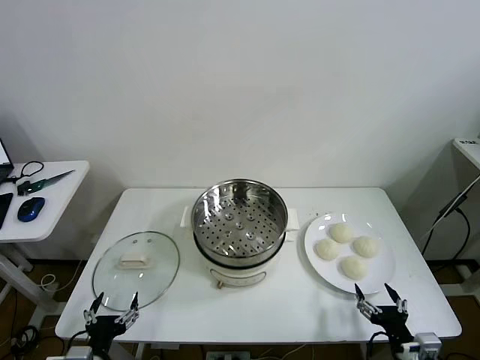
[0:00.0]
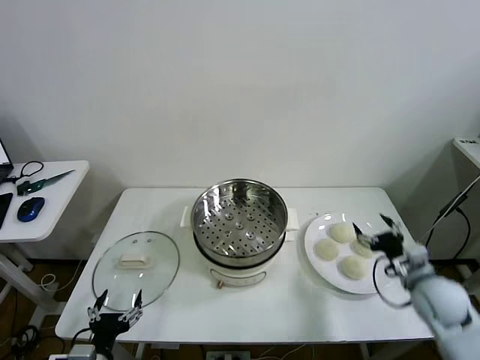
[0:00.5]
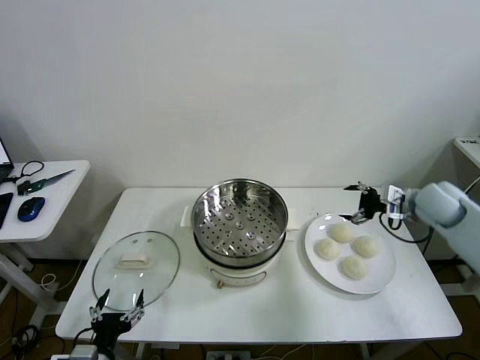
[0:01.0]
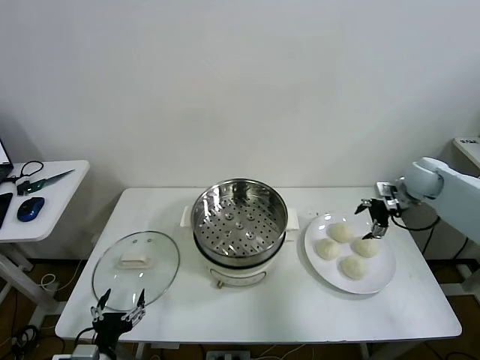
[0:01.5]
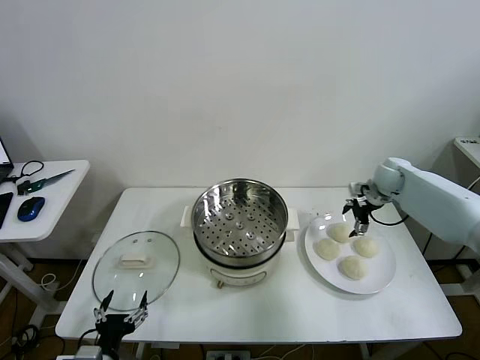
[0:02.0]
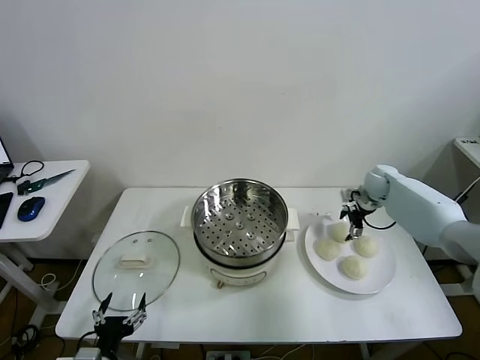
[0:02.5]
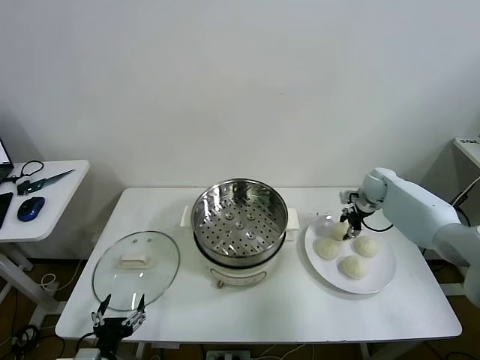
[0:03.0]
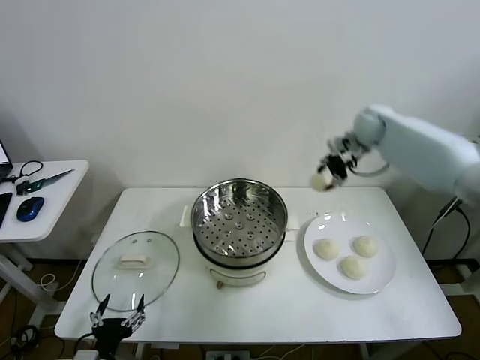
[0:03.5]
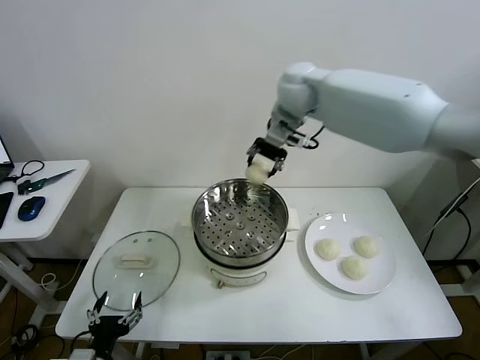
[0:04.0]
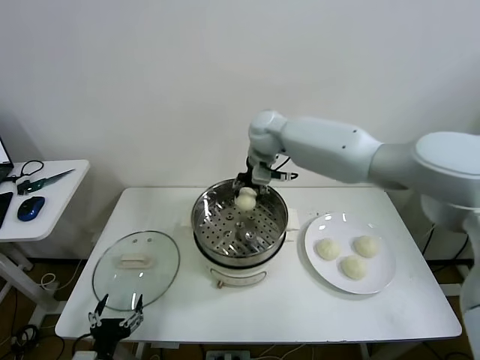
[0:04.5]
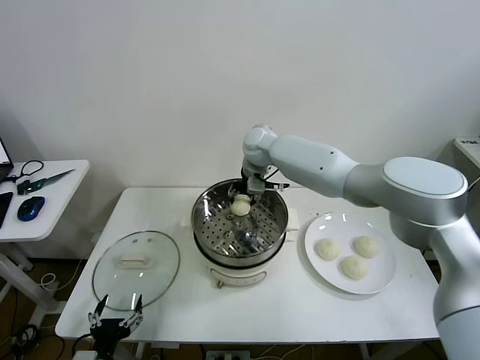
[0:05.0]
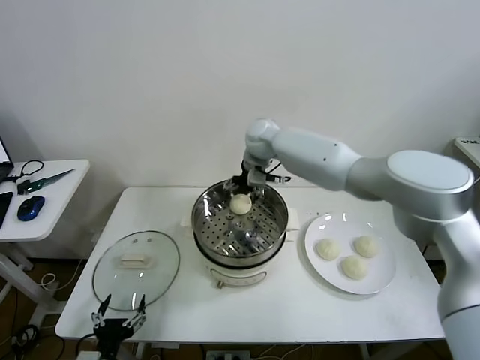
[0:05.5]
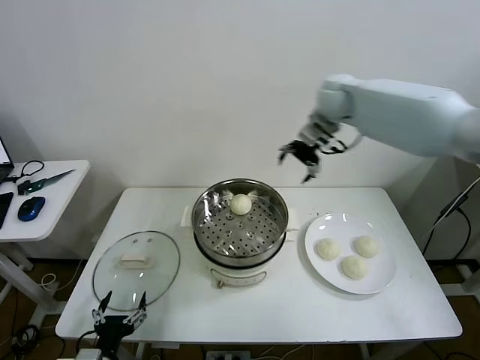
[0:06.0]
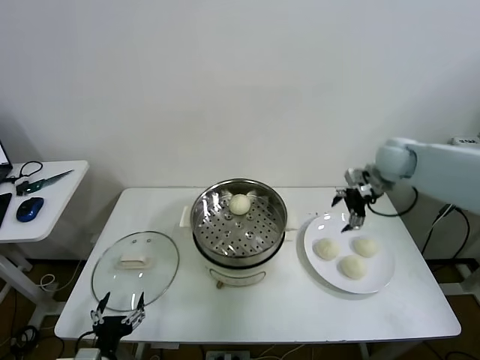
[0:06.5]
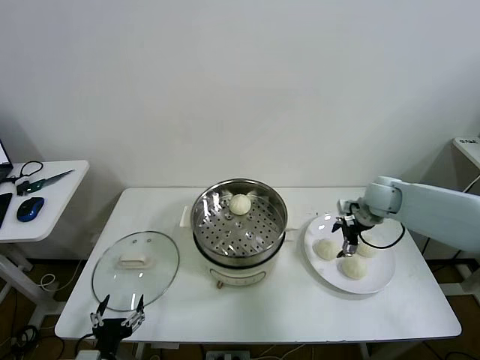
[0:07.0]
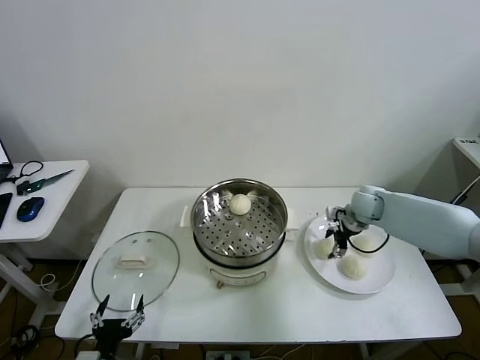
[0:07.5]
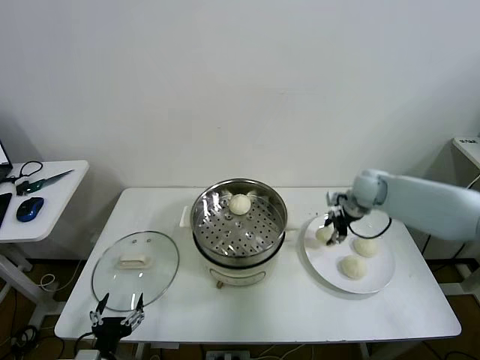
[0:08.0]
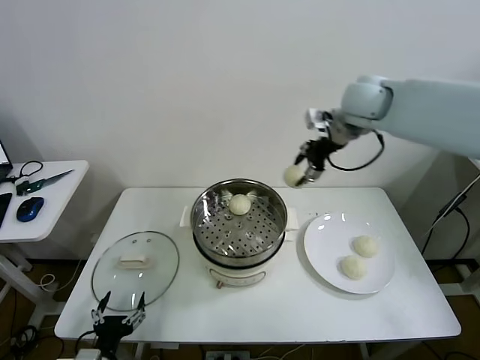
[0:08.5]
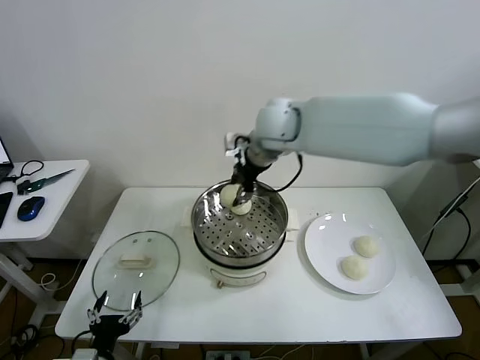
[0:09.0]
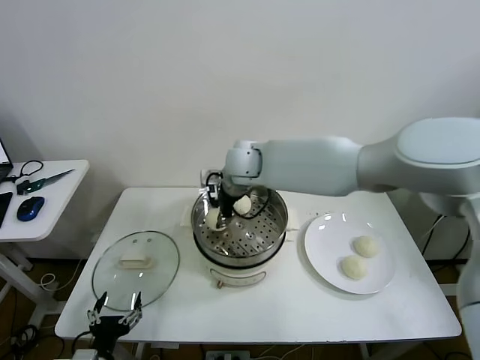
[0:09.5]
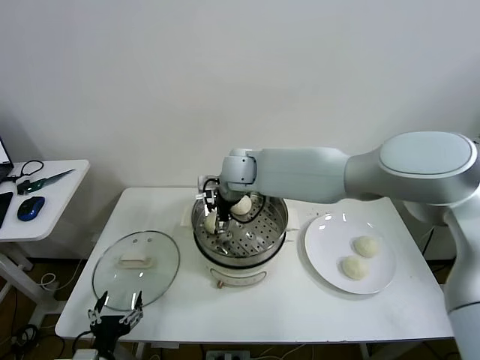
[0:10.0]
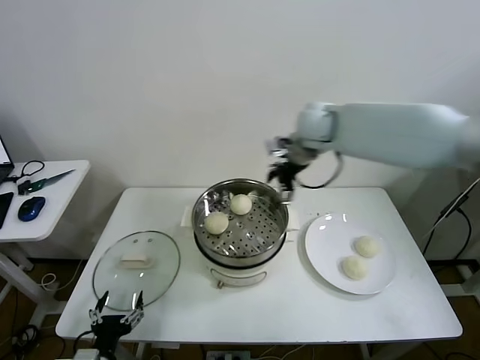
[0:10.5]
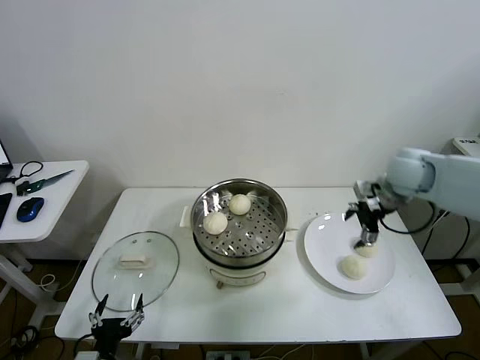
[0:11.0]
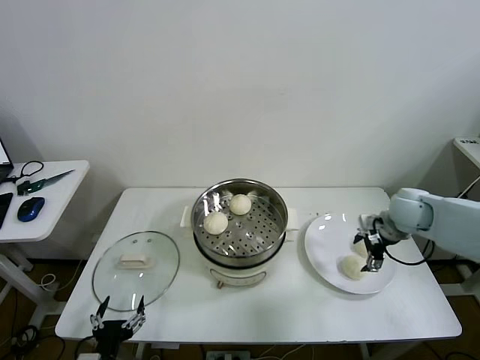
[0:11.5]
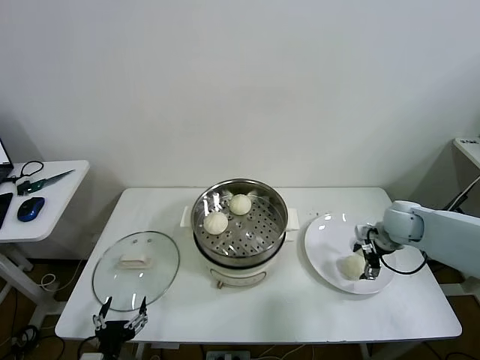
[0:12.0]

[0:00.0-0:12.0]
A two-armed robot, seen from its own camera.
Task of the whole recording: take steamed baozi put them in steamer then cover it.
Step, 0:00.0 to 0:02.5: Grasp the baozi in the plate with right gripper.
Step, 0:03.0 to 0:05.5: Place the baozi on the steamer with right gripper.
Step, 0:06.0 to 0:07.5: Grasp the baozi in the plate with right gripper.
Step, 0:08.0 to 0:09.5: Place the baozi on the steamer with right gripper.
0:02.0 to 0:04.0: The right gripper moves to the left and upward, roughly 40 cm, and closes up.
0:04.0 to 0:06.0: The right gripper goes some 15 cm to the right, and opens.
0:06.0 to 0:08.0: The right gripper heads downward, covering approximately 15 cm, and closes up.
0:08.0 to 0:10.0: The right gripper travels to the left by approximately 30 cm, and opens its fingers.
0:10.0 to 0:12.0: The right gripper shifts approximately 40 cm to the right.

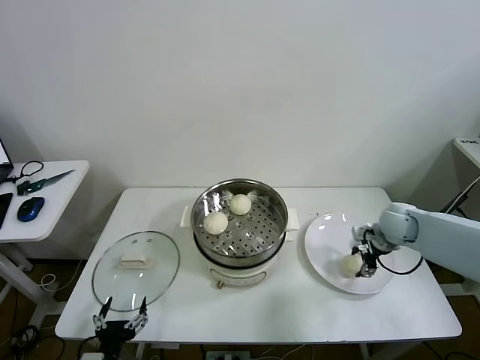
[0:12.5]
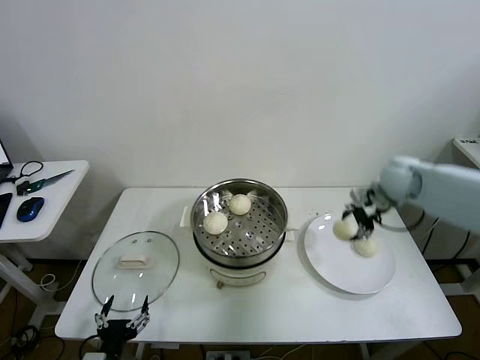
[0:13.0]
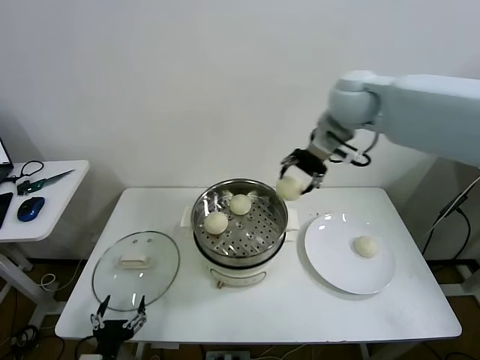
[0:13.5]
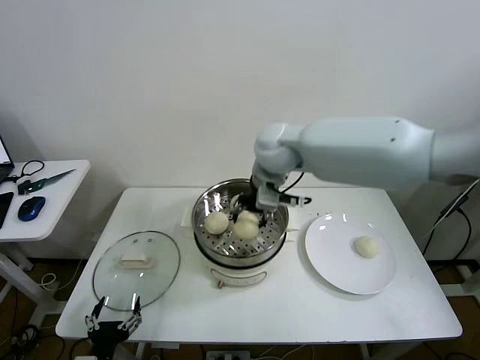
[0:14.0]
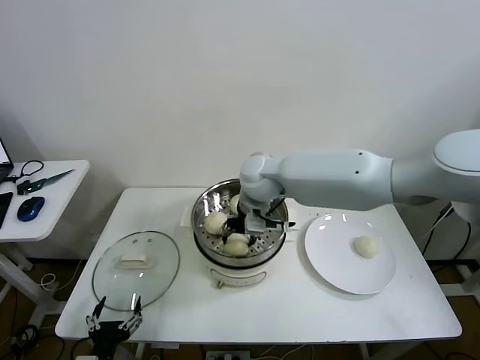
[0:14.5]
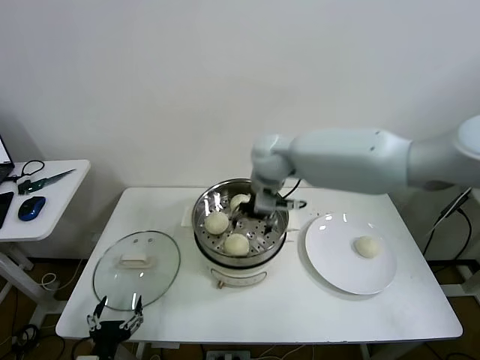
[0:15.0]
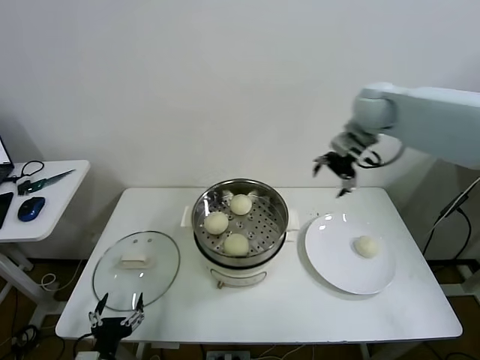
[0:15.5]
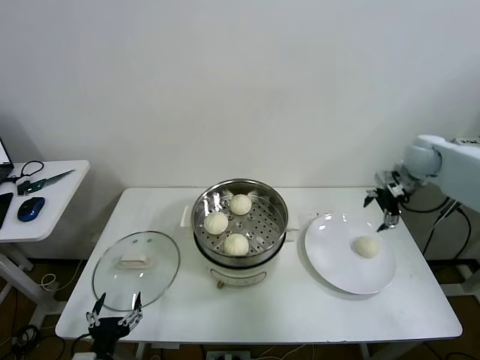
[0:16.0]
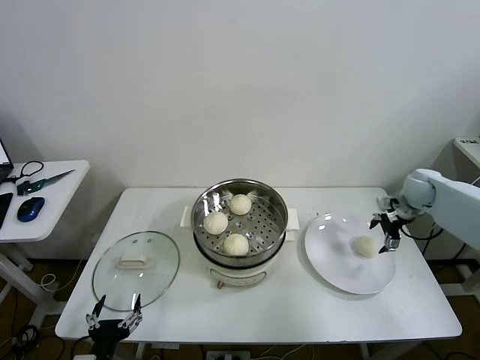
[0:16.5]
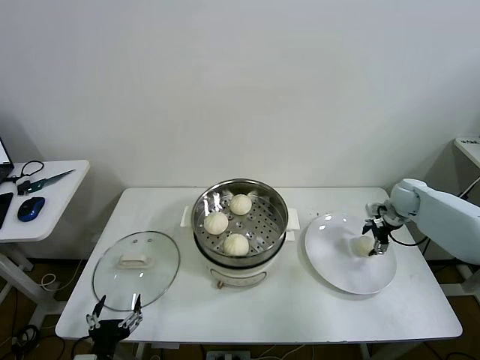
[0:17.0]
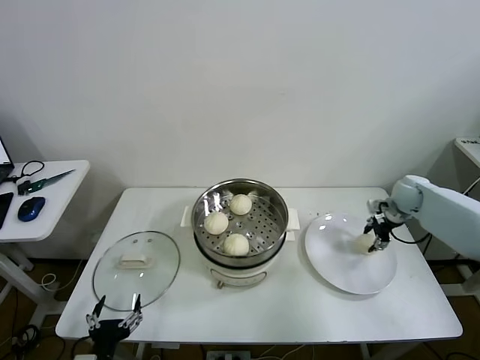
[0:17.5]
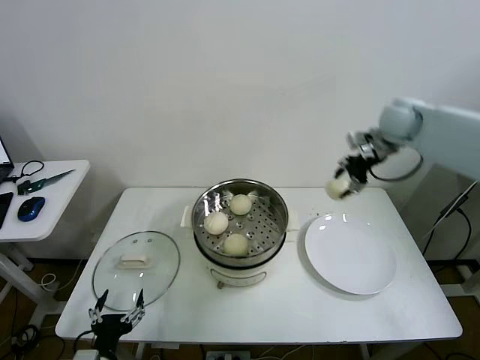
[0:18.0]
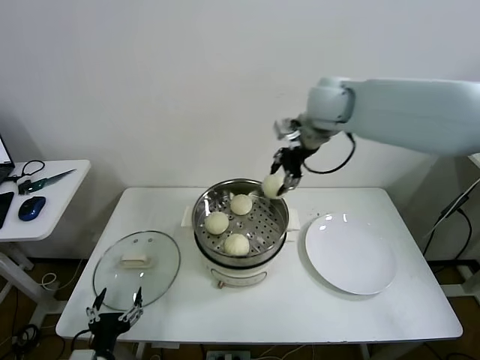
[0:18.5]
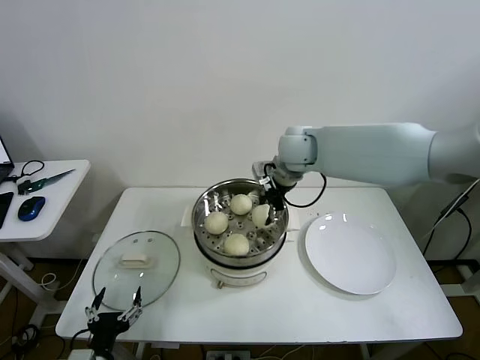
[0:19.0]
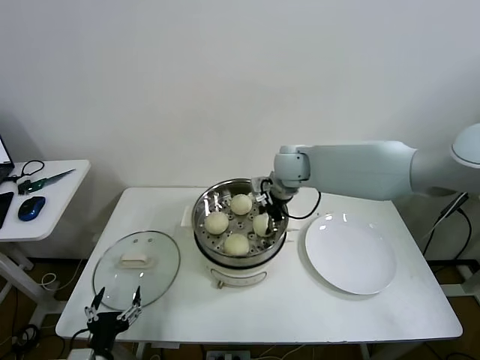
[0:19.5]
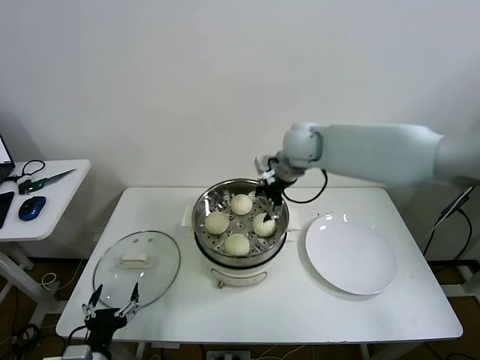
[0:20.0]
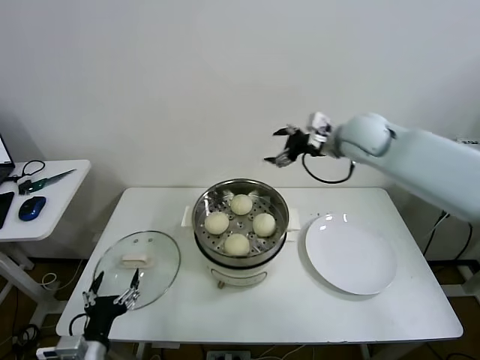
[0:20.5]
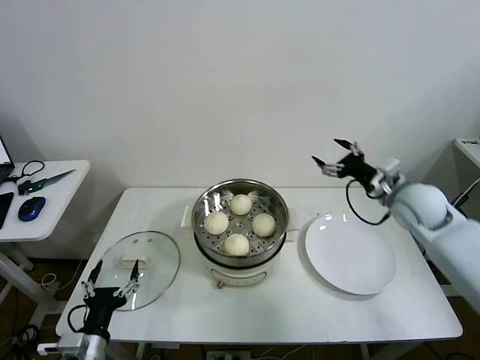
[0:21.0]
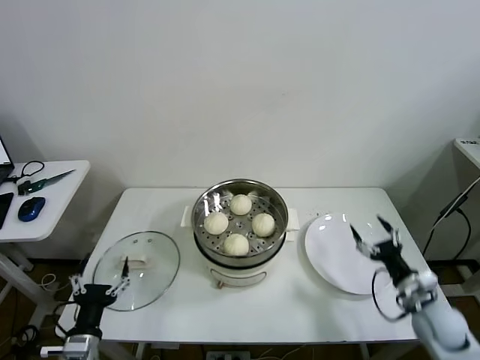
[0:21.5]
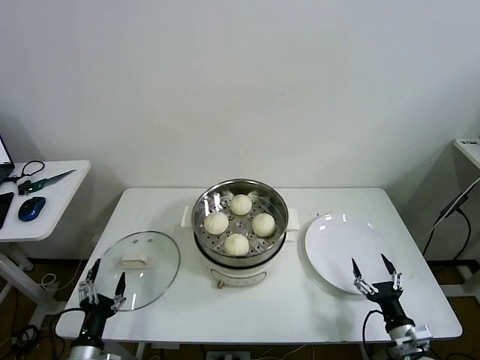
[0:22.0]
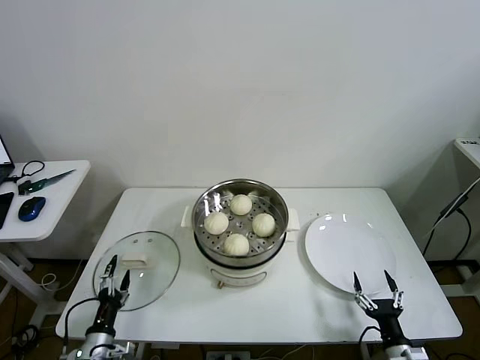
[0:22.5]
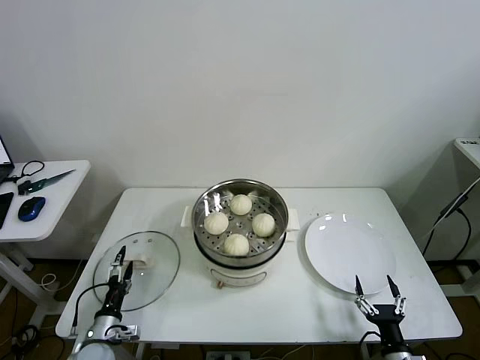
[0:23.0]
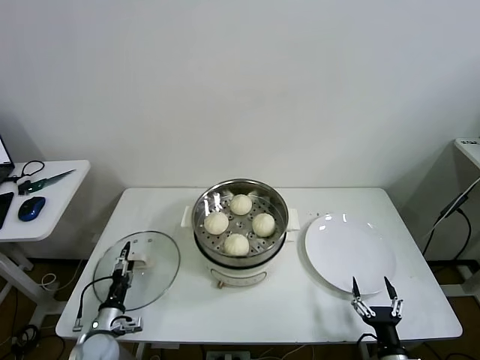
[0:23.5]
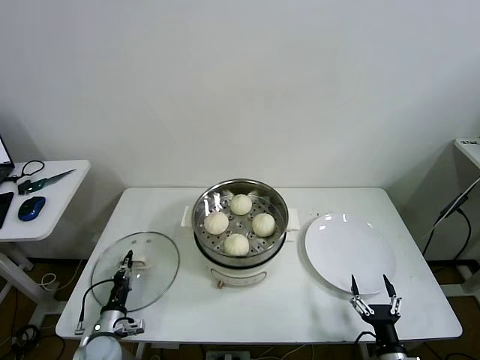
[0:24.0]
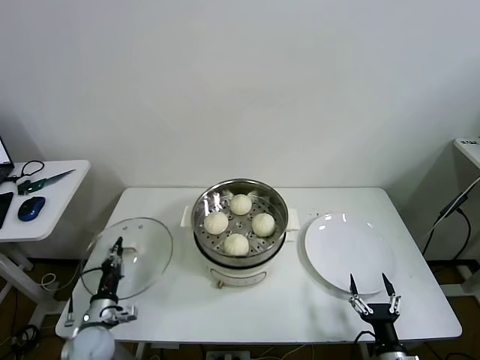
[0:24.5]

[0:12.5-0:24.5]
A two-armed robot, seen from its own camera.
Task of the whole recording: take steamed baozi put them in steamer then cover it.
Step, 0:12.5 to 0:14.5: Place the baozi on the steamer with right gripper.
Step, 0:15.0 to 0:17.0: Grasp the baozi in the plate with right gripper.
Step, 0:17.5 to 0:19.5: Place the baozi on the steamer with right gripper.
Step, 0:20.0 to 0:24.0: Grasp the pot lid with left gripper.
0:12.5 to 0:14.5: The right gripper goes about 35 cm to the left.
0:14.5 to 0:16.5: The right gripper goes roughly 40 cm to the right, and opens up.
0:16.5 to 0:18.5: The right gripper is displaced to the left and upward by some 40 cm, and closes its fingers.
0:18.5 to 0:20.5: The right gripper travels to the right and downward by roughly 10 cm, and opens.
0:20.5 to 0:22.5: The left gripper travels downward by about 10 cm; the right gripper goes approximately 60 cm downward and backward.
0:22.5 to 0:24.5: The left gripper moves forward, about 5 cm, and closes up.

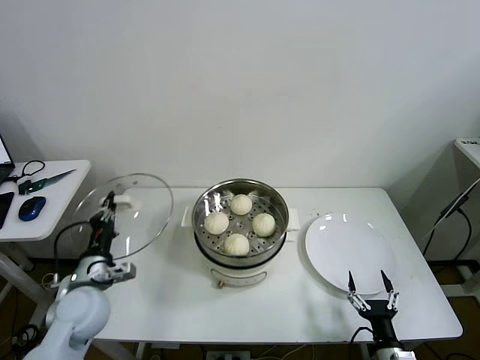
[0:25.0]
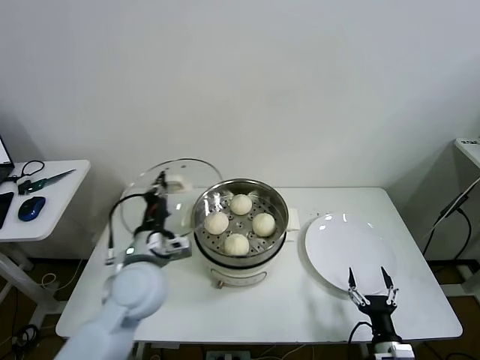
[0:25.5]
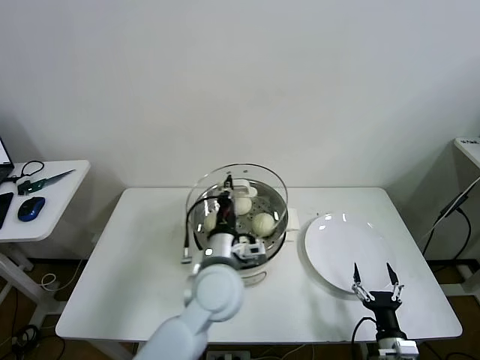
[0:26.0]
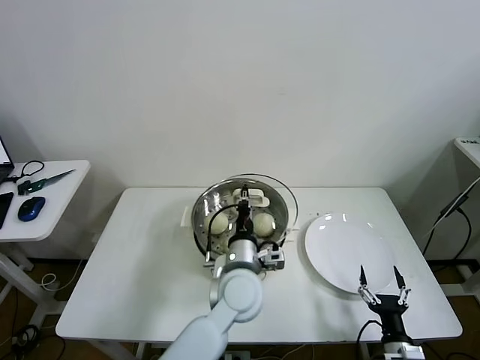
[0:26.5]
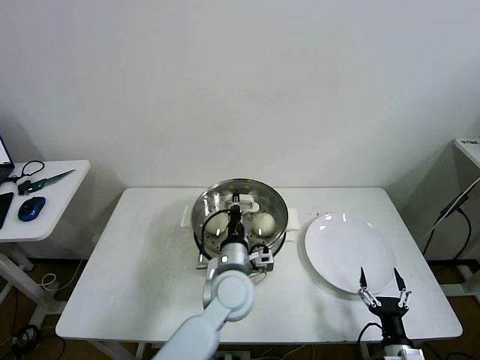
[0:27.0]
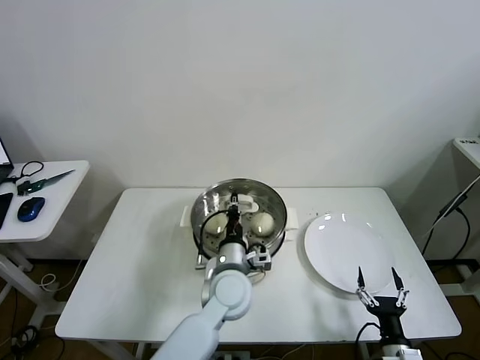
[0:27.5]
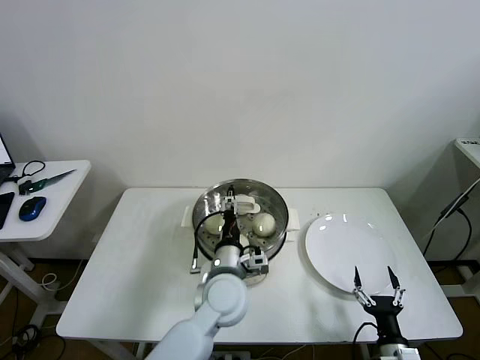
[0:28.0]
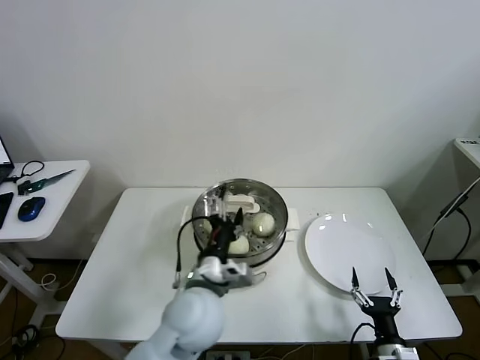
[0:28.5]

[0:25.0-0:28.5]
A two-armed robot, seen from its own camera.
Task of the whole recording: take steamed baozi put them in steamer then cover it.
Step, 0:25.0 to 0:28.0: Place the pot lid on the steamer with left gripper.
0:25.0 to 0:27.0: The left gripper heads to the right, covering approximately 30 cm.
0:27.0 to 0:28.5: The left gripper heads backward and upward, covering about 5 cm, and opens.
